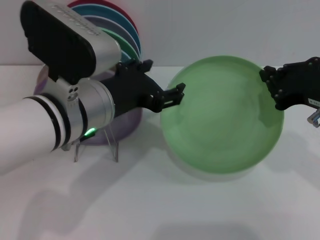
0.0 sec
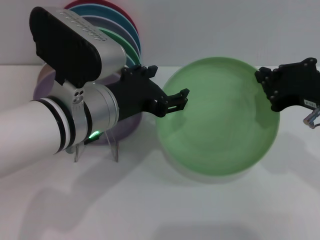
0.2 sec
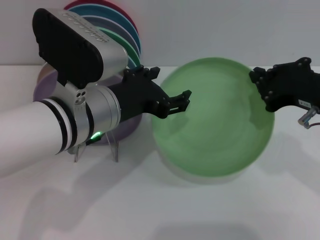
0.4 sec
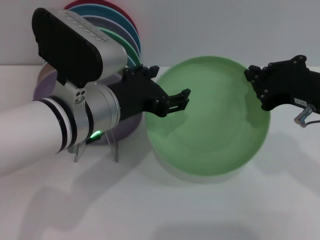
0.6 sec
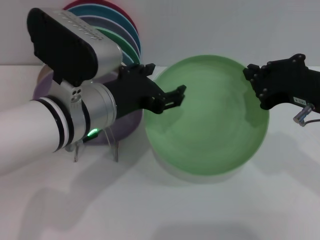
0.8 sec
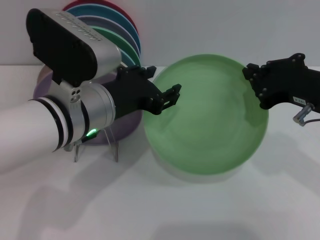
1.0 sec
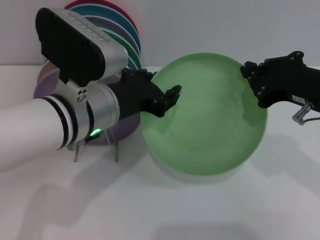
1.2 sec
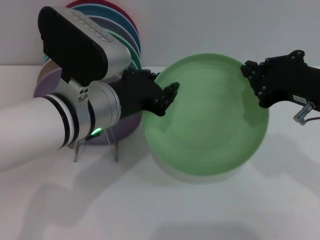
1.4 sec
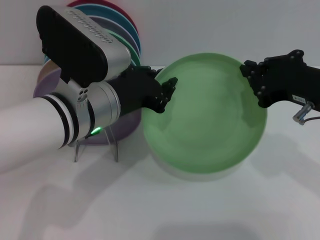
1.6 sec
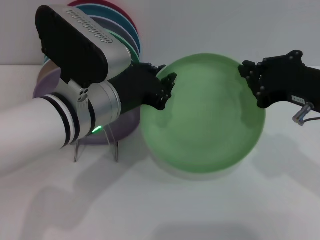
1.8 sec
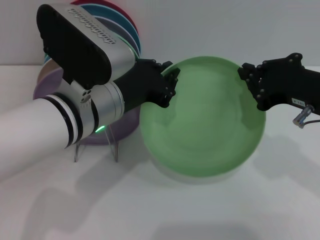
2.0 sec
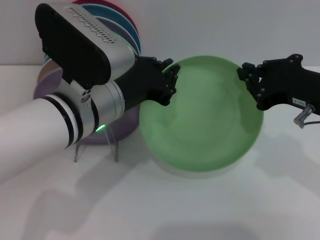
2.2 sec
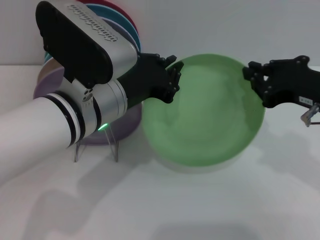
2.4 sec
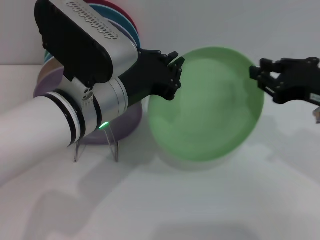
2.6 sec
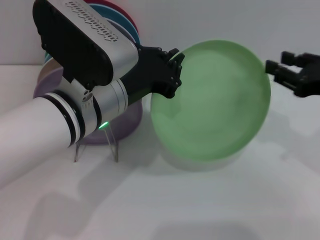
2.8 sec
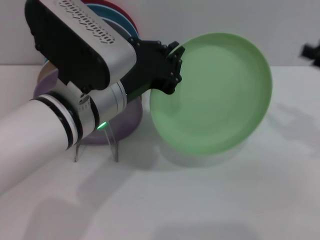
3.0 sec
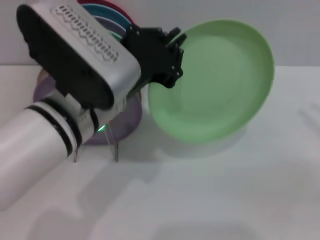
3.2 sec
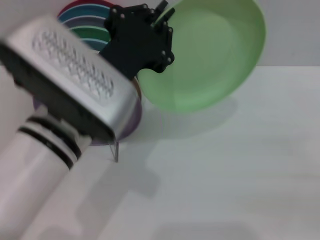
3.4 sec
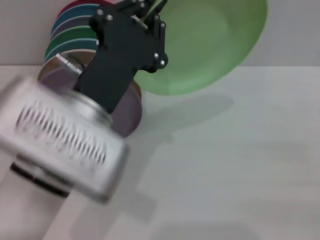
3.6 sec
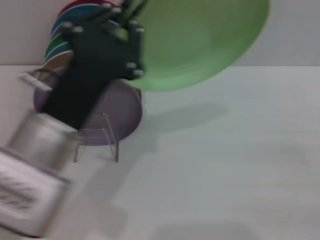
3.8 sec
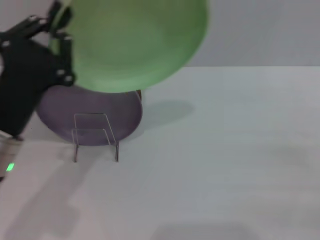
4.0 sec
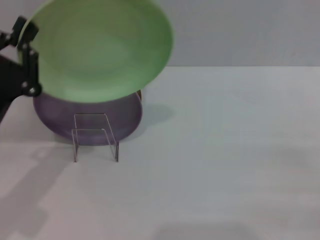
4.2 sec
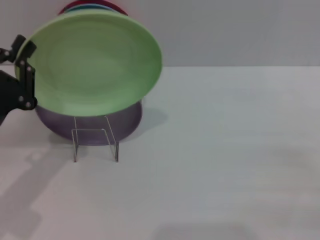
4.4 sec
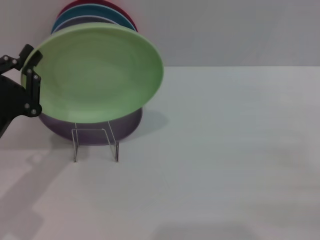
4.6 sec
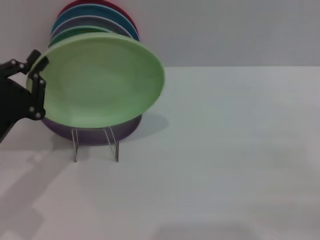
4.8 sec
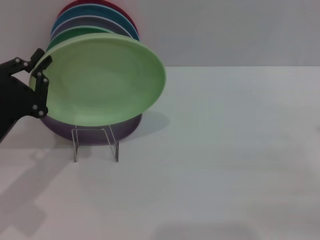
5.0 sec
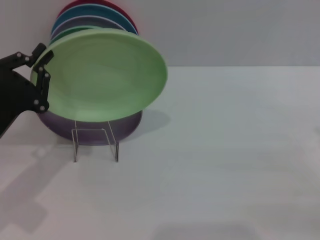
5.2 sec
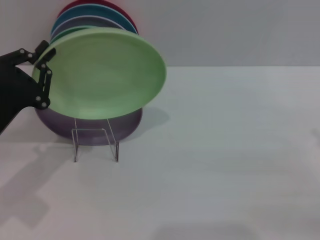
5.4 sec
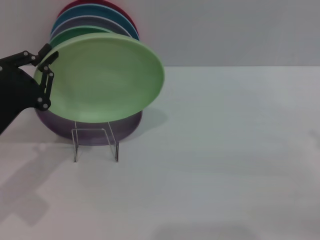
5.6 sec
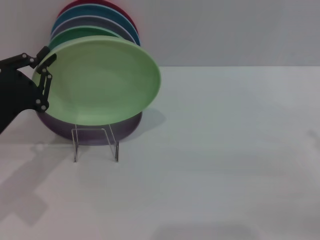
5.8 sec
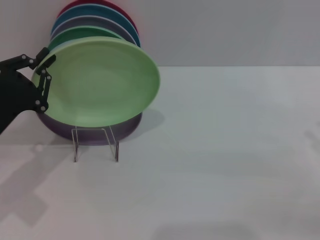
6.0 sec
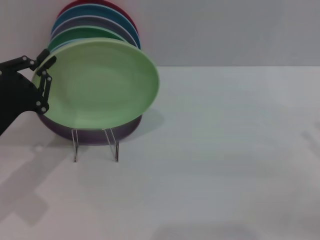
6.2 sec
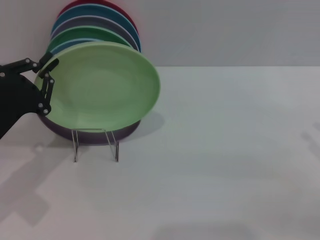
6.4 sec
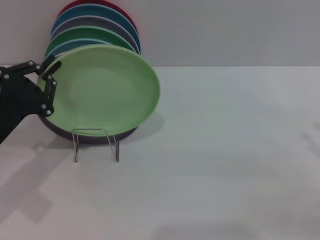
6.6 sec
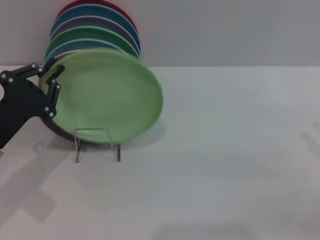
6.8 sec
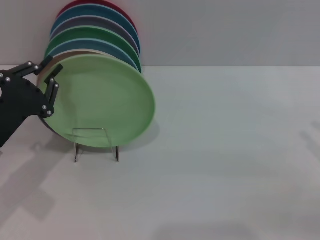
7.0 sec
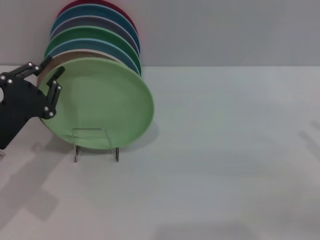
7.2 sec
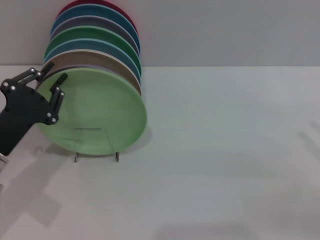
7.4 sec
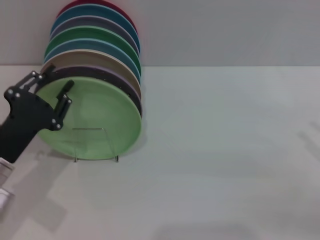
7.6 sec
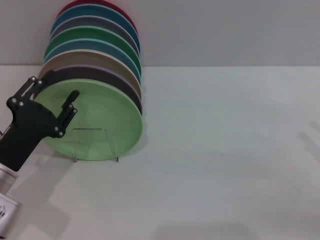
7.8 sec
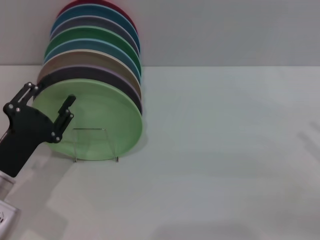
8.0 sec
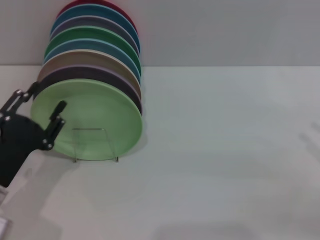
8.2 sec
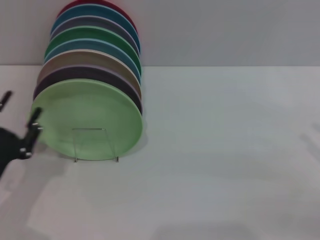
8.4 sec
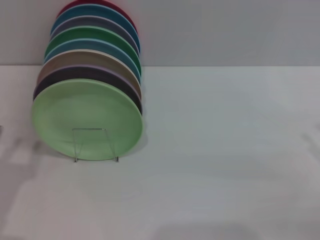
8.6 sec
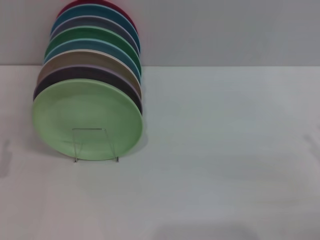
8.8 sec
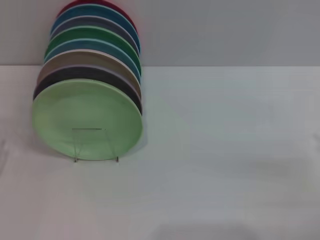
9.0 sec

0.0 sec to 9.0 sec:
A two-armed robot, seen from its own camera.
Task of the whole recording: Grip the plate with one hand, pass it to the other, then set it on the shelf.
Step, 0.0 sec to 3.0 sec: Pass the plate from the right gripper to the left gripper.
Step, 3.2 sec to 7.8 sec: Place the plate on the shelf with the left gripper.
0.0 sec to 1.6 sec: The left gripper closes its fingers.
1.6 sec to 3.0 sec: The right gripper shifts approximately 10 cm to the right, and opens up.
3.0 sec to 4.4 sec: The left gripper travels to the left and downward by about 20 cm. The right gripper travels downward, to the right and backward by about 10 cm.
4.4 sec to 6.0 sec: The grippers stay close to where they were, moving slightly.
6.0 sec to 7.6 sec: The grippers move only a little.
7.6 sec to 9.0 sec: The left gripper heads to the left and backward, covering some 10 cm, and opens.
